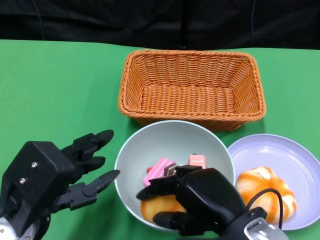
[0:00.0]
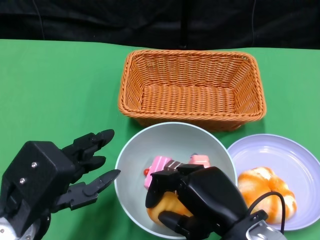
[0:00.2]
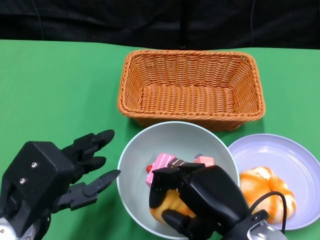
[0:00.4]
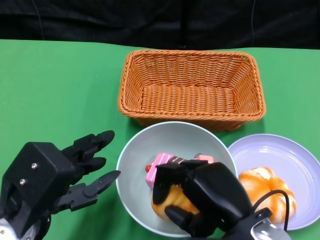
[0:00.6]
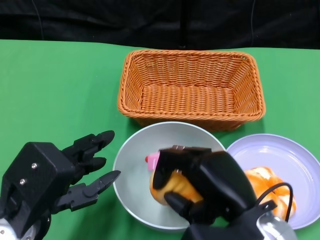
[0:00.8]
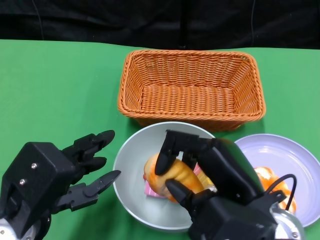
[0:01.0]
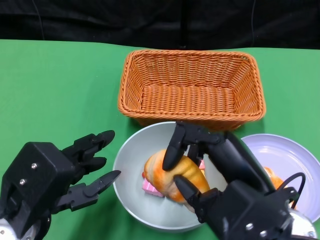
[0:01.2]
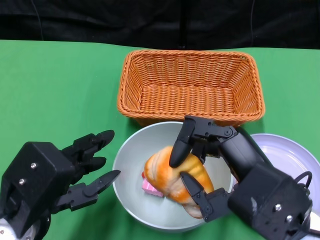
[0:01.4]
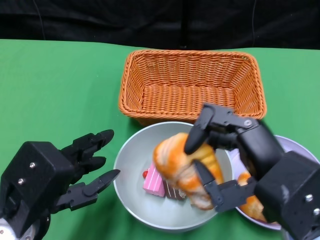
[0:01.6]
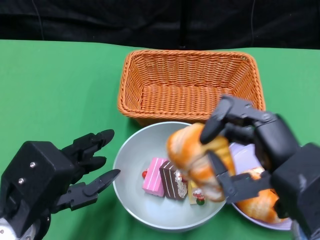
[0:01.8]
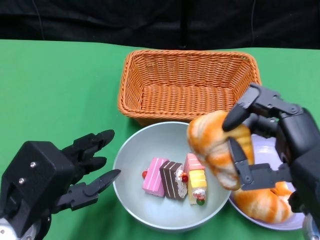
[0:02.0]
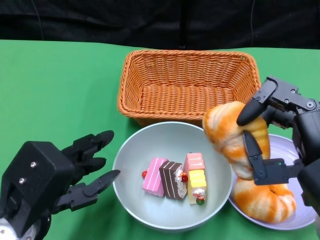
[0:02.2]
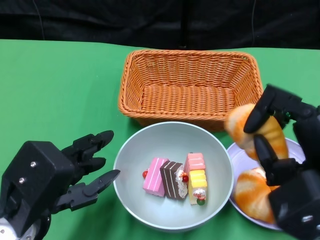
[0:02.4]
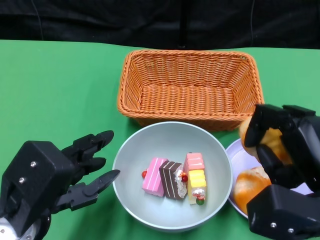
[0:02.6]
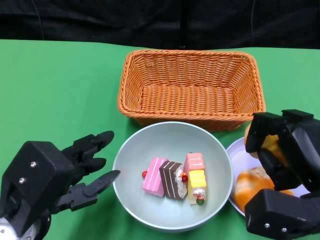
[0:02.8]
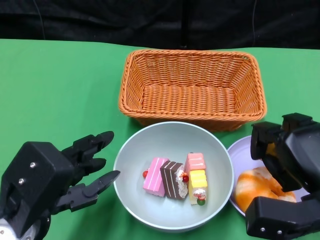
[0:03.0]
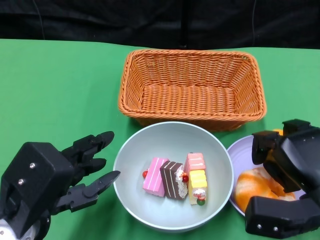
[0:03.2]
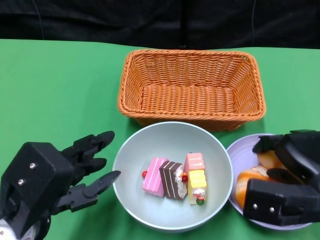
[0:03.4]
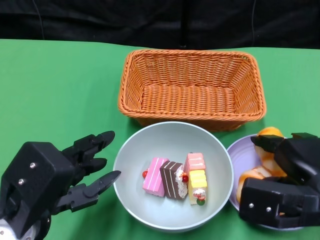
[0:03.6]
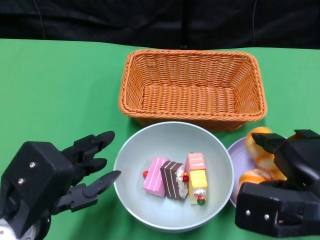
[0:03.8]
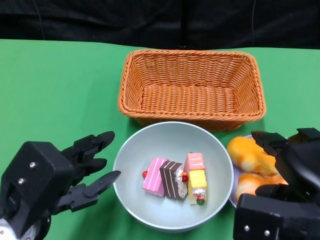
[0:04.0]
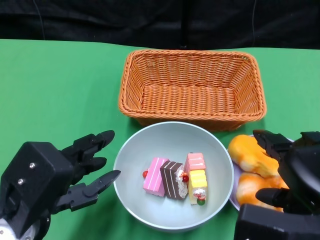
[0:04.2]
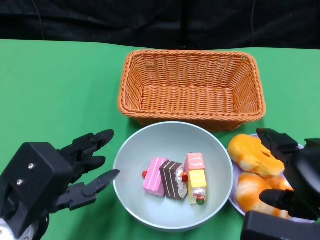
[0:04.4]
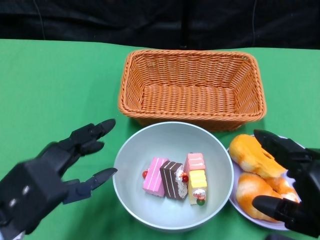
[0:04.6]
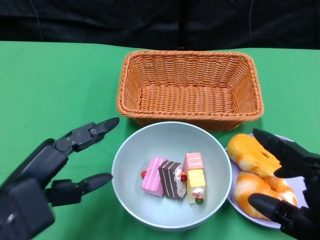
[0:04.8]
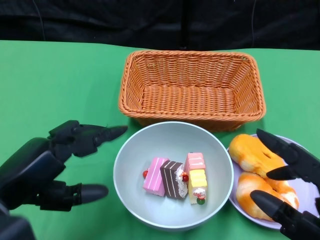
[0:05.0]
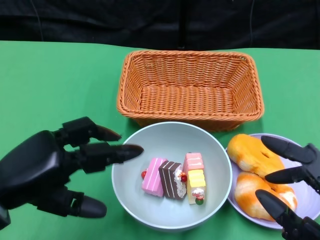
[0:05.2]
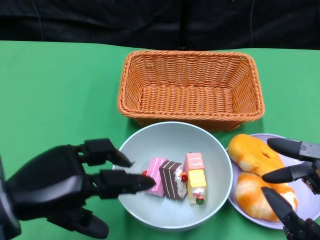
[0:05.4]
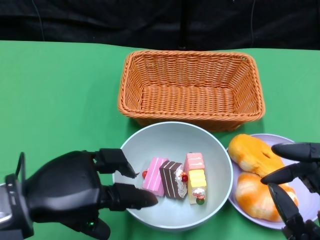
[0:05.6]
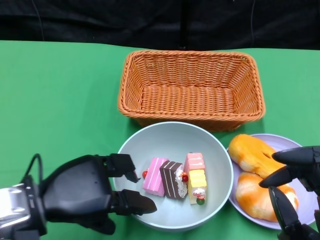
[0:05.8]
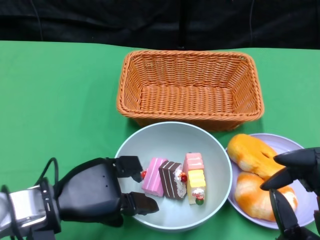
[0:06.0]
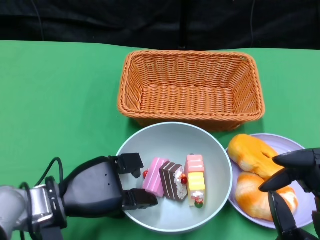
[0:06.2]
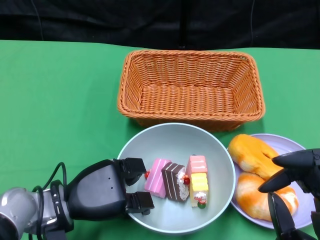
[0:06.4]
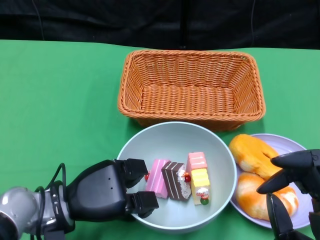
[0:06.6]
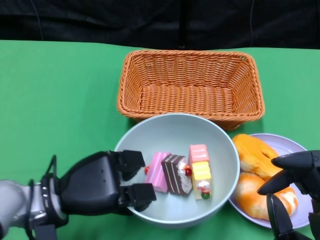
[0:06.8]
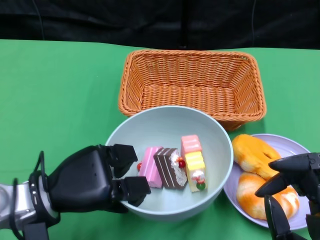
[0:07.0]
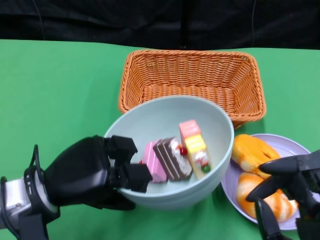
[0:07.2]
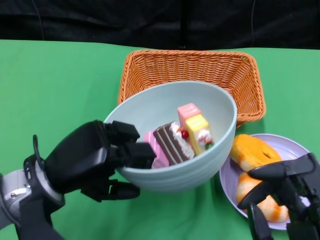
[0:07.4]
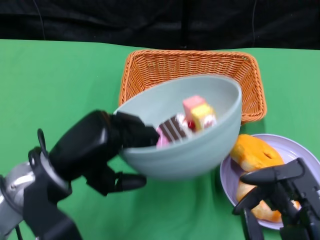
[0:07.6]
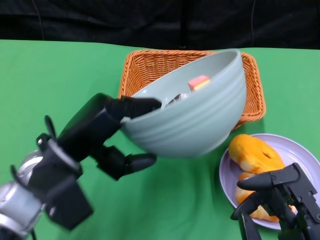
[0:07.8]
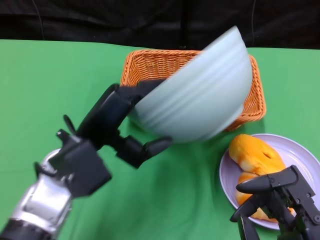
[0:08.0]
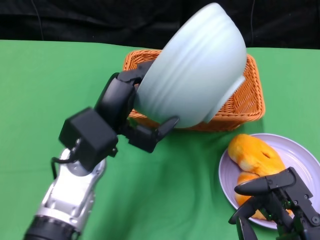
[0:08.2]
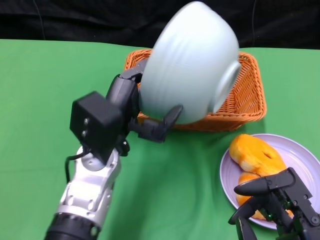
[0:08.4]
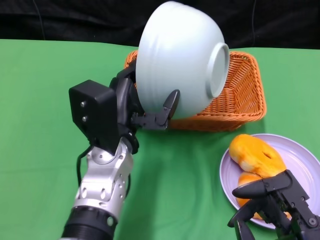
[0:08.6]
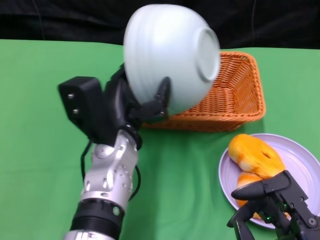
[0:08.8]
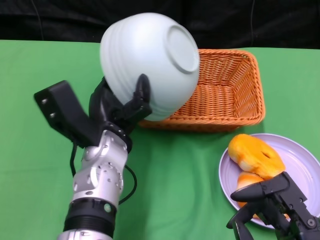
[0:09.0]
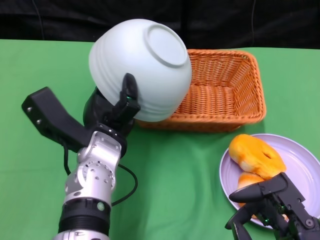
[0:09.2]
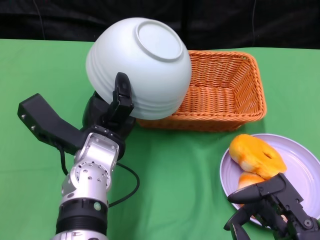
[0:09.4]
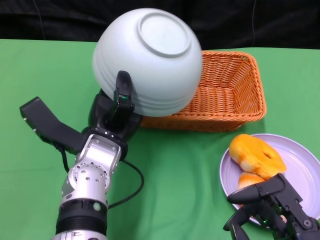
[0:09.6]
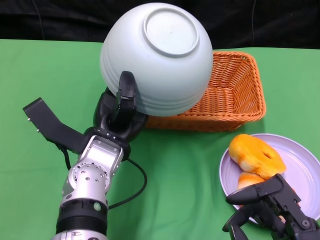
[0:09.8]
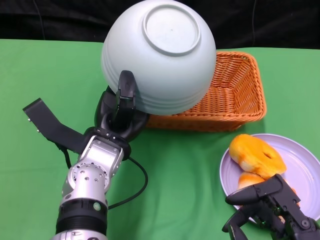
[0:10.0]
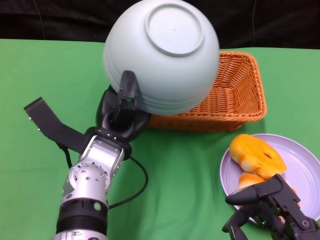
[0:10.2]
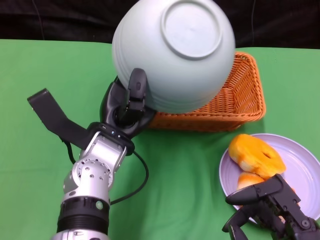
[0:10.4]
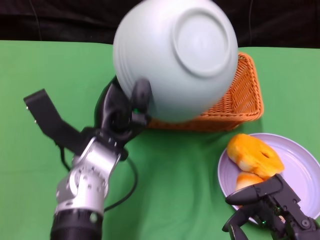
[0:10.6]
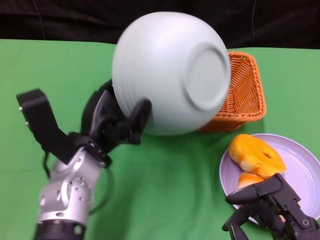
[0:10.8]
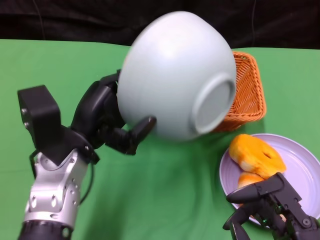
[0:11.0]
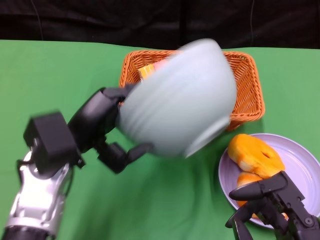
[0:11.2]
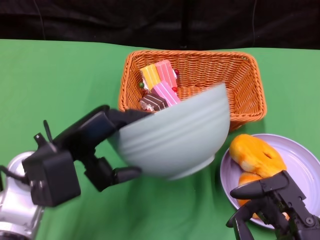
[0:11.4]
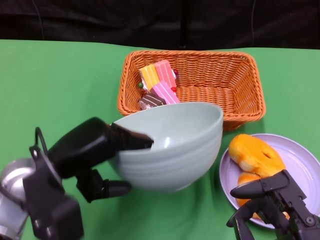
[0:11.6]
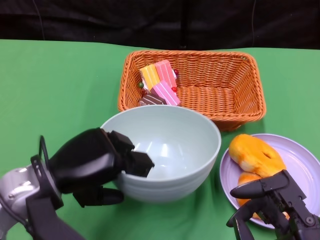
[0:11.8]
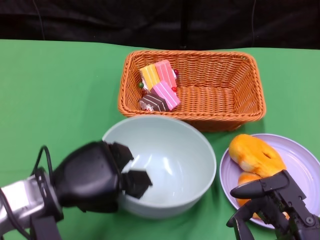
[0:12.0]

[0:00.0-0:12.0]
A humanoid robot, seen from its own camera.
Step, 0.0 to 4.0 s: Pick up the bread with the right gripper and place it on the plate.
Step, 4.2 to 6.4 s: Grasp the bowl with the left gripper.
Step, 6.8 to 10.6 s: Pour the cake into the basket with the left gripper.
0.0 to 1.6 s: The right hand shifts roughly 5 cm upward.
1.6 to 3.0 s: The right hand travels downward and to the right by some 10 cm.
3.0 to 4.4 s: The right hand travels upward and backward by roughly 10 cm.
4.4 to 6.0 s: The right hand heads backward, covering roughly 5 cm; the left hand changes place by some 5 cm.
7.6 to 9.0 s: The left hand shifts some 10 cm to the right and forward.
10.4 to 12.0 s: The left hand moves to the left and backward, approximately 10 cm.

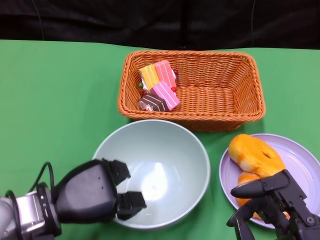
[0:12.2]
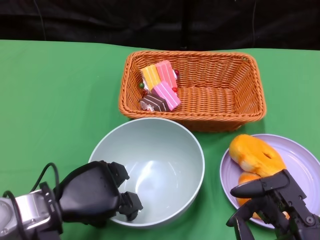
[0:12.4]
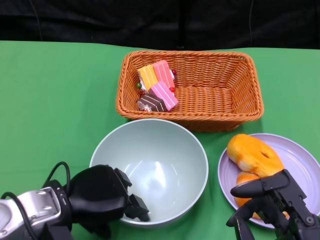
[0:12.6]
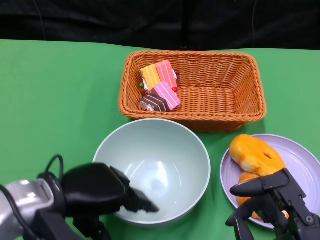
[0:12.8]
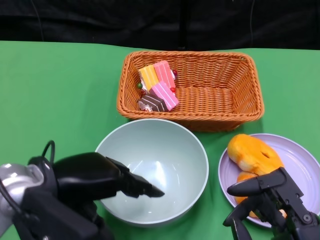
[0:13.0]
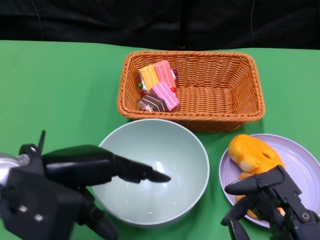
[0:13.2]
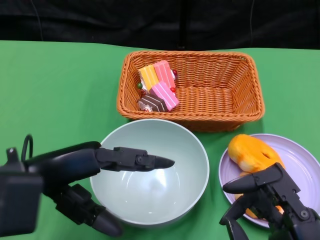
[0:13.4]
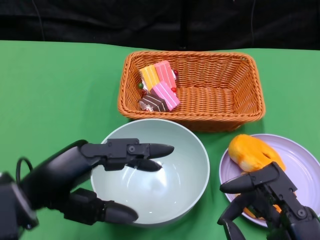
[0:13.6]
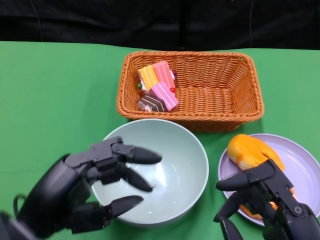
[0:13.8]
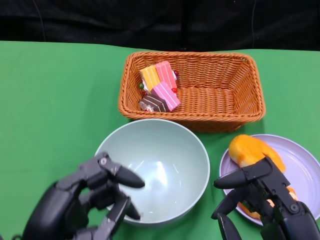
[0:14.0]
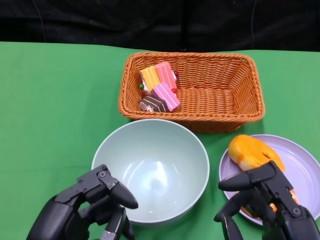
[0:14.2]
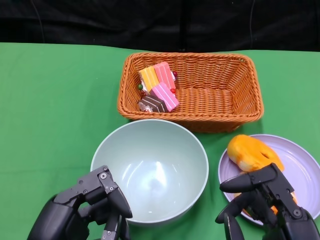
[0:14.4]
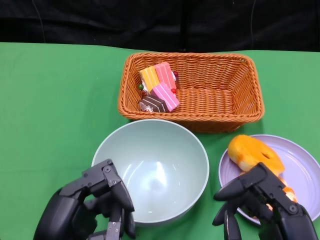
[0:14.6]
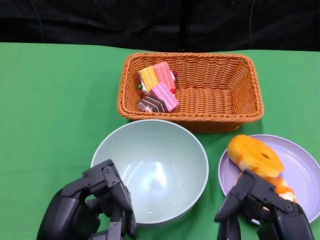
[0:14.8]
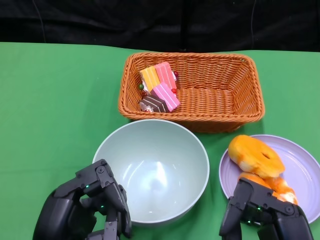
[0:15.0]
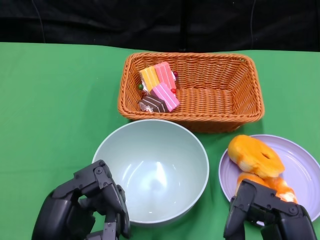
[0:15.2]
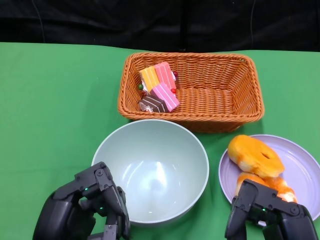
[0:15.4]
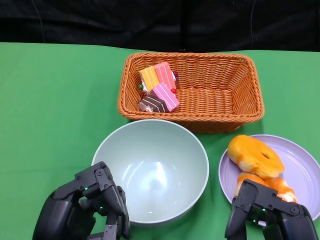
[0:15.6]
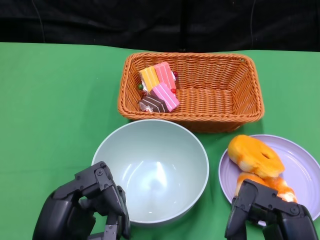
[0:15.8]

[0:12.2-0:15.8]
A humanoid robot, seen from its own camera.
12.2 to 14.0 s: The left hand heads backward and upward, covering approximately 15 cm.
14.0 to 15.8 s: The hands stay close to where they were, moving slightly.

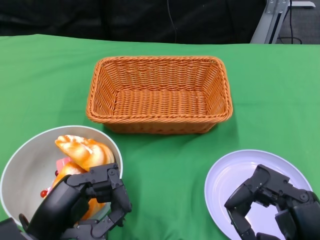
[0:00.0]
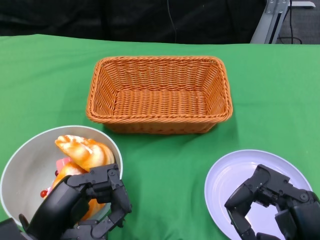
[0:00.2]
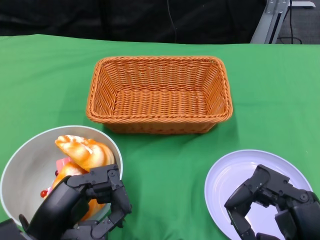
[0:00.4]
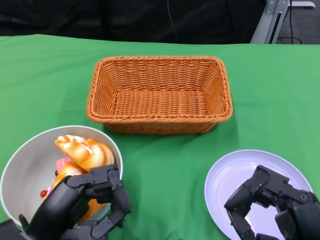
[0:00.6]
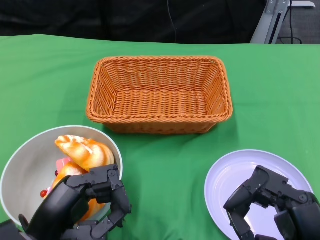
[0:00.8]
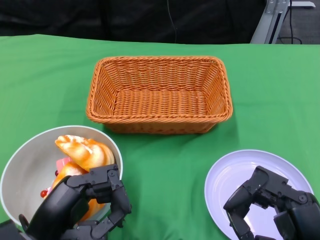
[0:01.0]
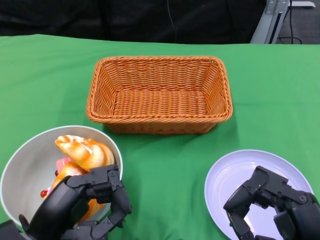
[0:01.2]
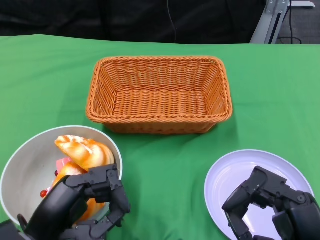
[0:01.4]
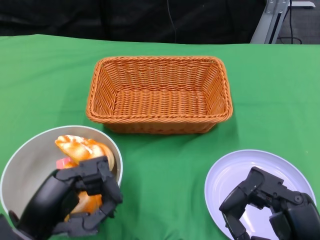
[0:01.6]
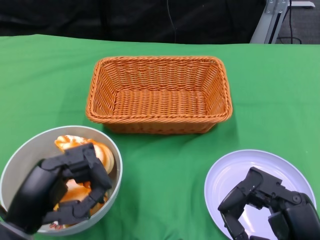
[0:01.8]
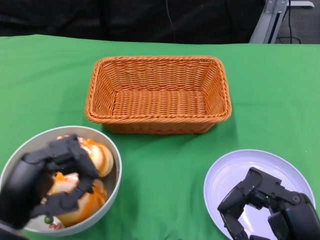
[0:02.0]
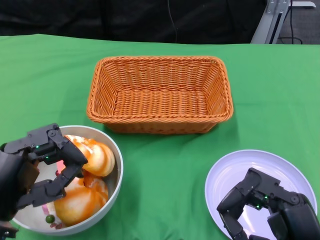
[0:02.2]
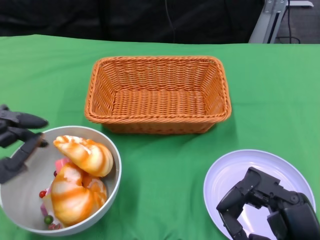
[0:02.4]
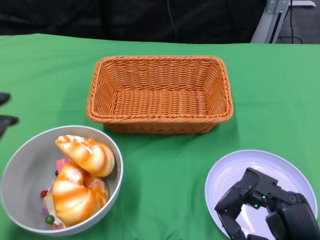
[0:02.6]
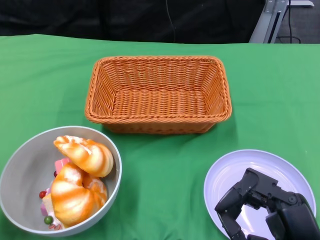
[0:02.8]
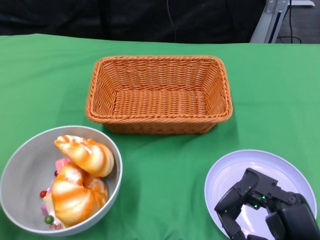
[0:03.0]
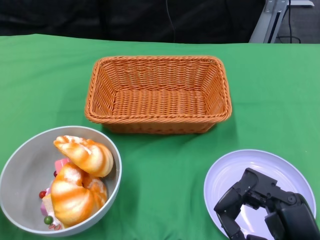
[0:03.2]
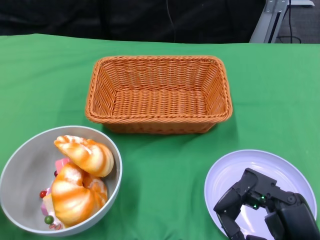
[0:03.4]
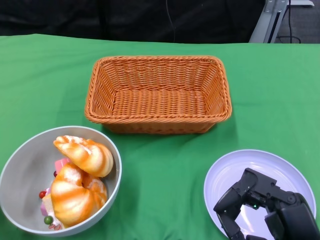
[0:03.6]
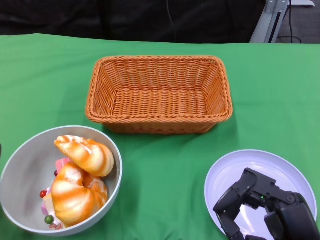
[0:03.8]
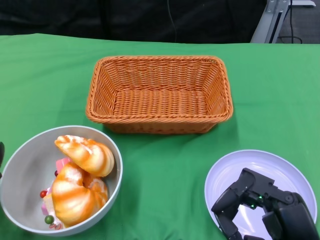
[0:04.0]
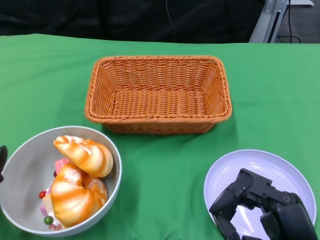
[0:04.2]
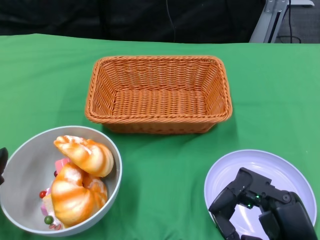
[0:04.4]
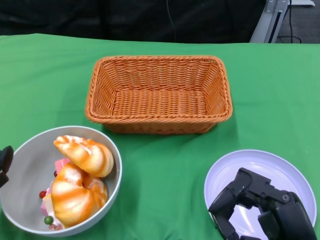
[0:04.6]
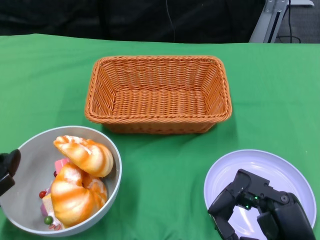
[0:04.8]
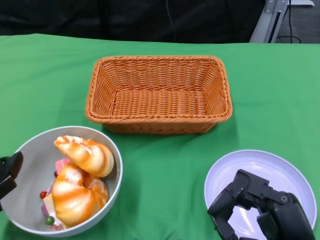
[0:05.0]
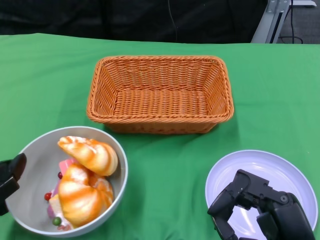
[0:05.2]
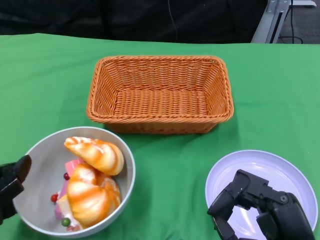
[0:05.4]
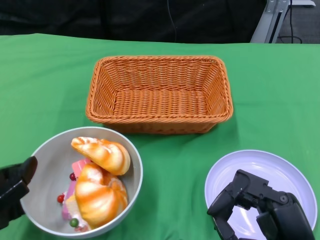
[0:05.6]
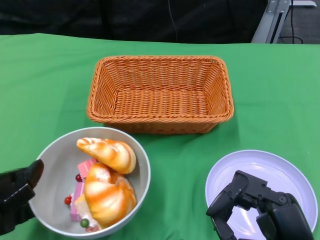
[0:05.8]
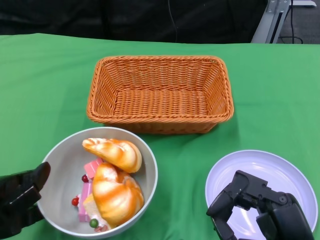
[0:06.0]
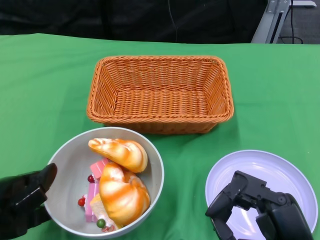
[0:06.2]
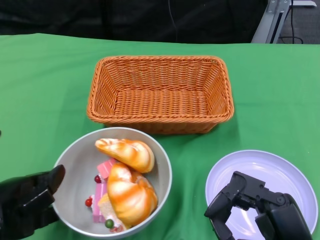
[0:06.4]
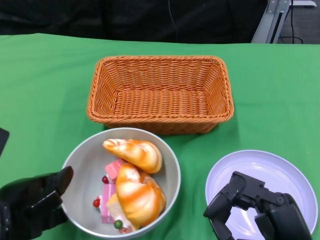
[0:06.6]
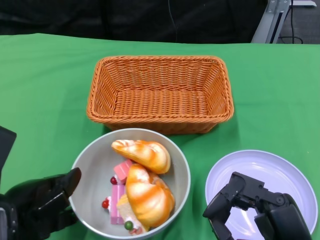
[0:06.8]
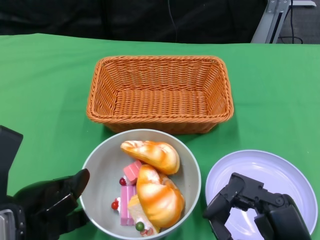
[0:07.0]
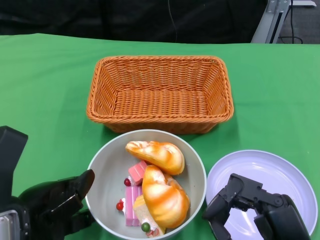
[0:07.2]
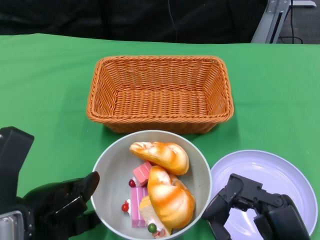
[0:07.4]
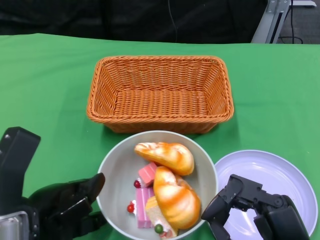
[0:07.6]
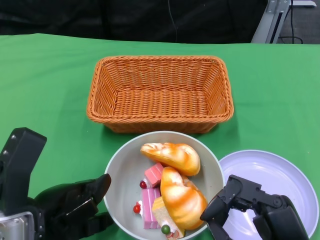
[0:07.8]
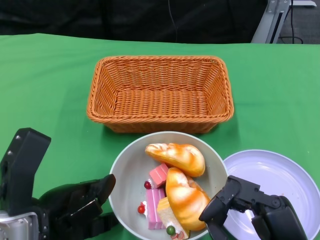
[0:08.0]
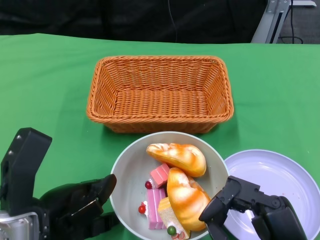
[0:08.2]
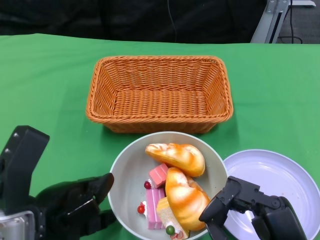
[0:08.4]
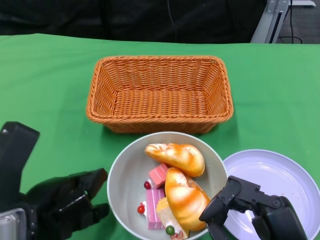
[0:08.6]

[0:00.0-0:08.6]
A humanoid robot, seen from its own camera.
Step, 0.0 to 8.6 s: Push the bowl to the center of the table using the left gripper.
1.4 to 2.8 s: The left hand is displaced to the left by approximately 10 cm.
5.8 to 7.2 s: The left hand is displaced to the right by some 5 cm.
7.2 to 8.6 s: The hands make only small movements.
